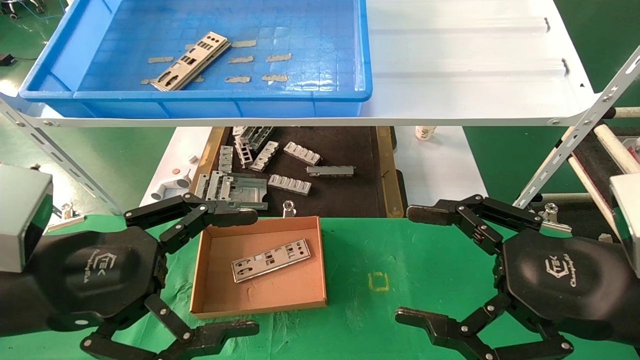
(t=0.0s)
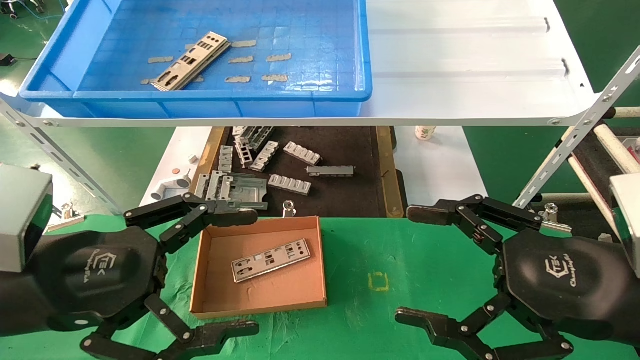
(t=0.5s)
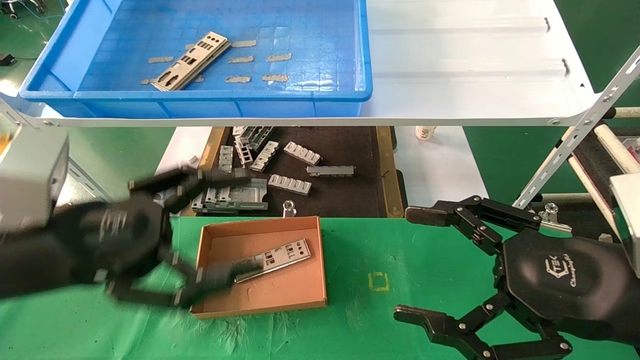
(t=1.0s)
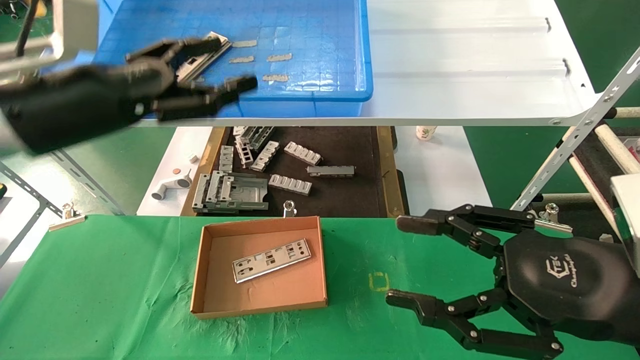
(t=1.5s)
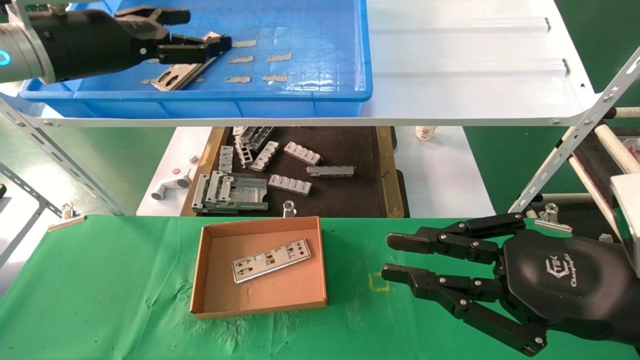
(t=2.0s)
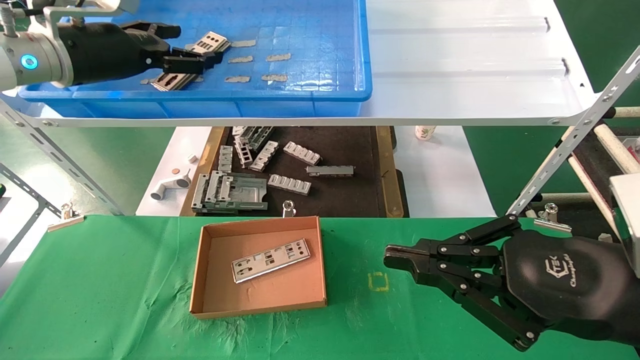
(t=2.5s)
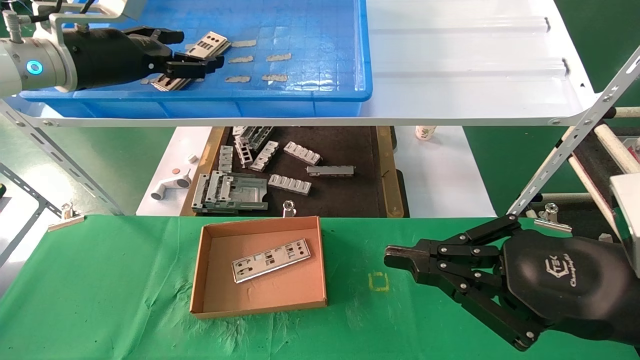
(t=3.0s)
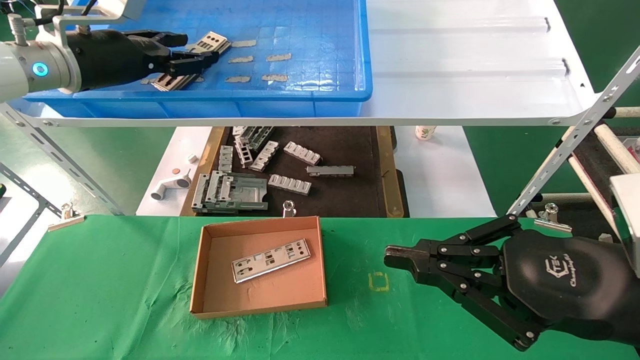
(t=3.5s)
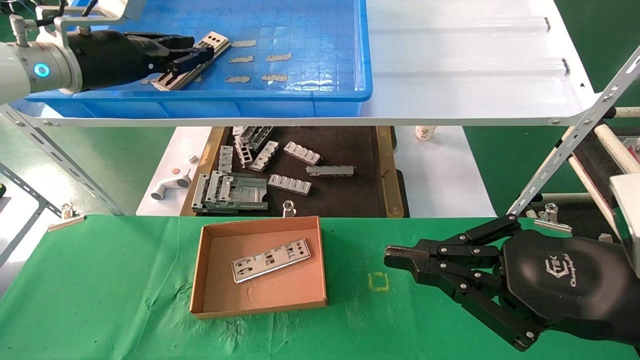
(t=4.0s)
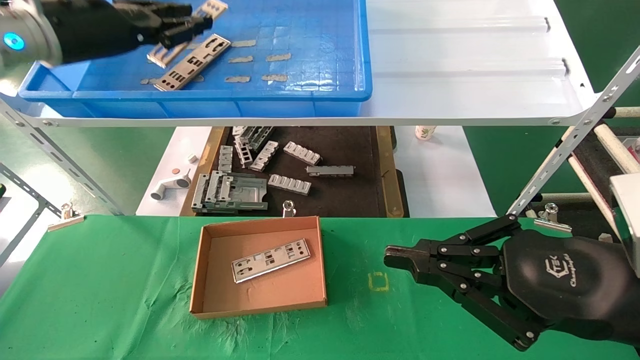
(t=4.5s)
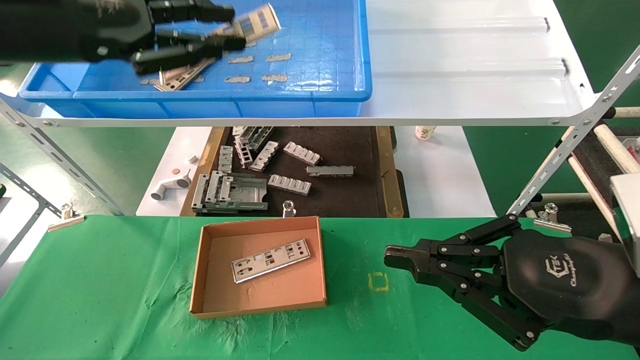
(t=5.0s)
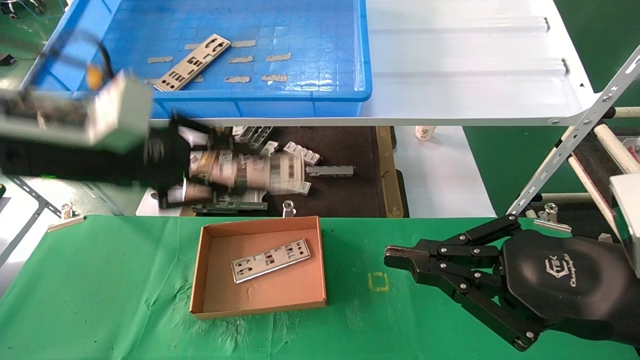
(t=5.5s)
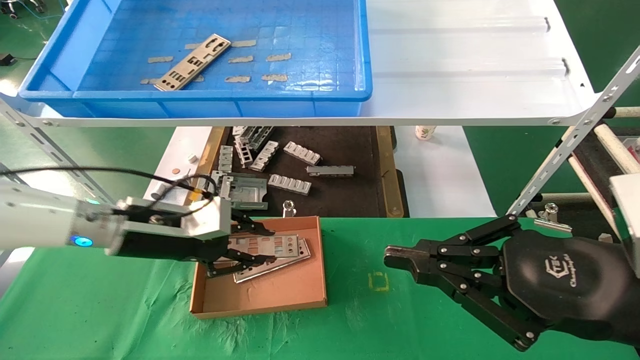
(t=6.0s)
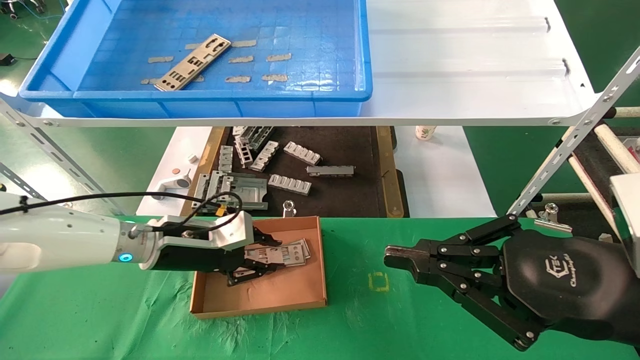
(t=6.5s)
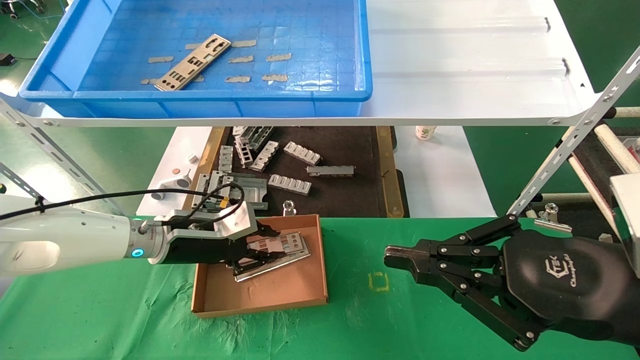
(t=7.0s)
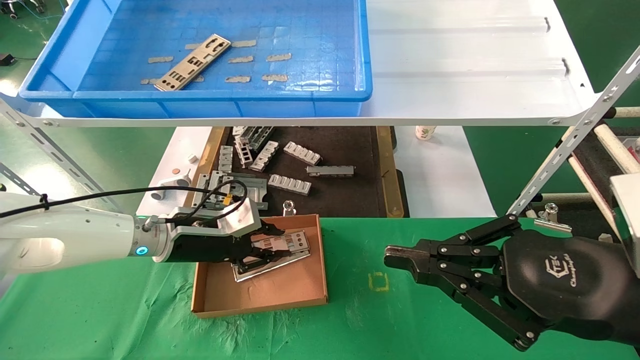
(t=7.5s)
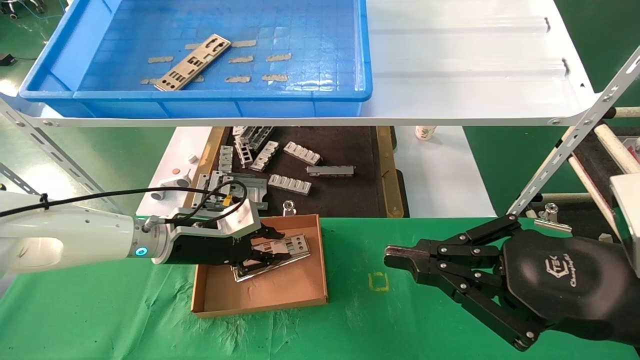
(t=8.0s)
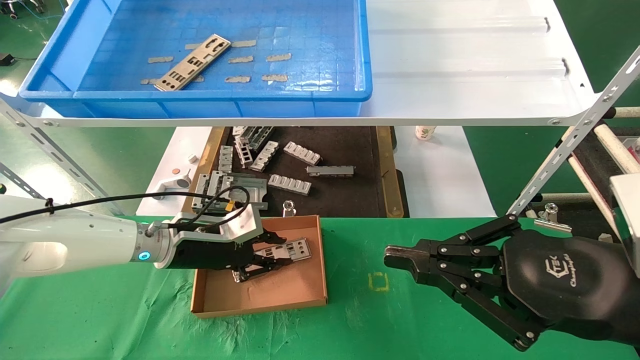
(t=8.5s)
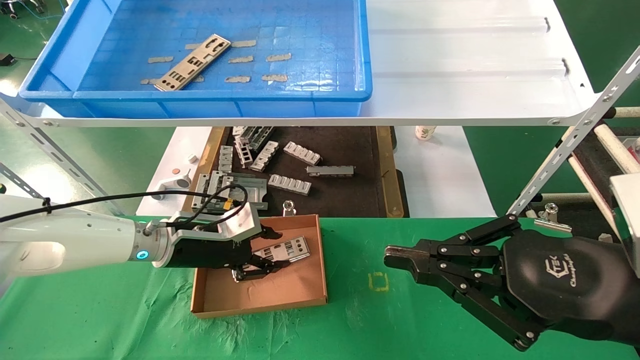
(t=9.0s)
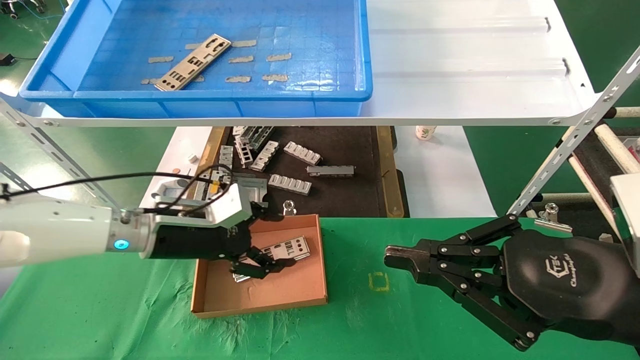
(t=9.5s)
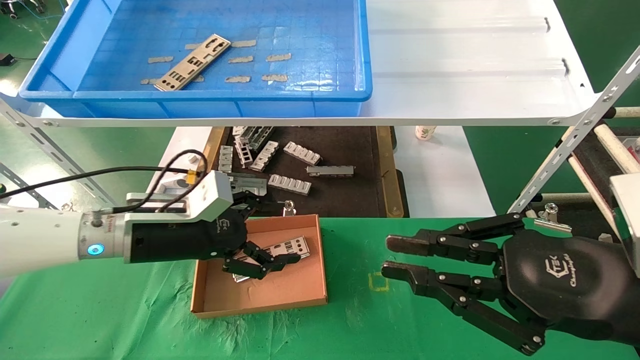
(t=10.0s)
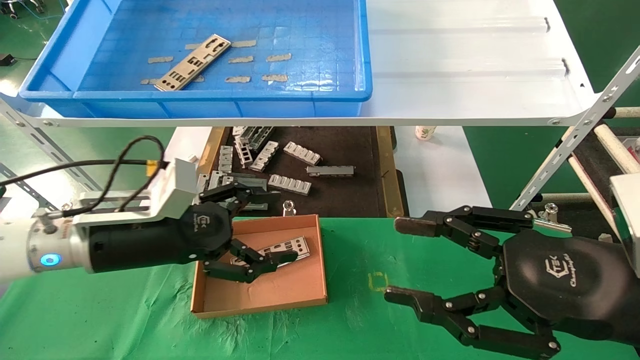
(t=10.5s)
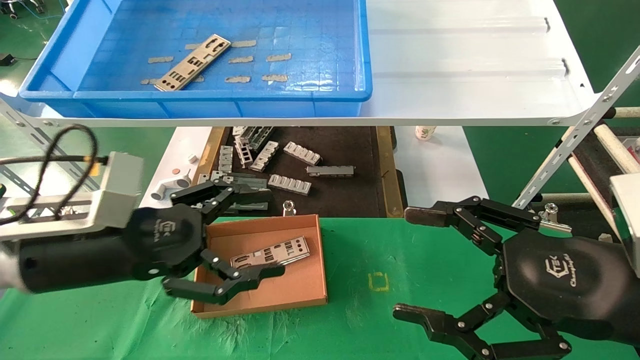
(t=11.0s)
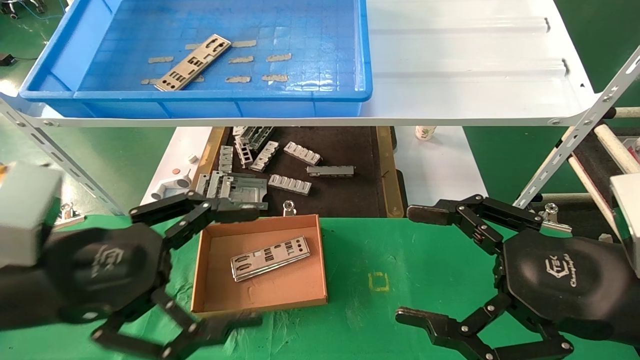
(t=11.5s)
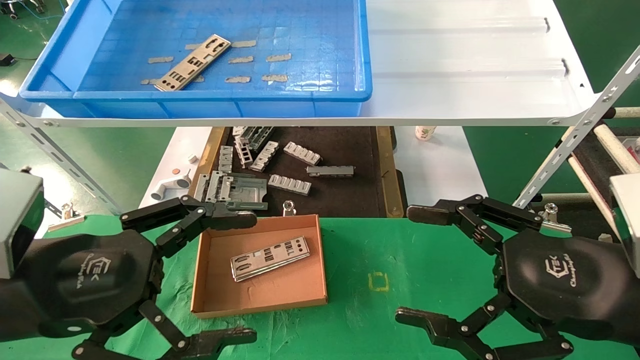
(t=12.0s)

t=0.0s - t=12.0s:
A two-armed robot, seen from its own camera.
Task of the whole recording: pick up the parts on the tray and put them in the cardboard box.
Step, t=1.5s - t=4.0s: Pick up the IO bracket from the container box.
Step, t=4.5s - t=9.0s: Place the IO bracket into the ingredient slot.
t=0.0s - t=2.0s: The right gripper closes its fingers, while the left gripper goes some 25 cm forward and upward.
t=2.0s - t=4.0s: The left gripper closes up.
t=4.0s - t=6.0s: The left gripper travels downward by about 20 cm.
t=6.0s - t=8.0s: The left gripper moves downward and forward, some 10 cm.
t=8.0s - t=10.0s: The left gripper is displaced backward by approximately 5 cm, and opens up.
t=10.0s - t=12.0s: The left gripper goes approximately 20 cm backward, while the right gripper opens up.

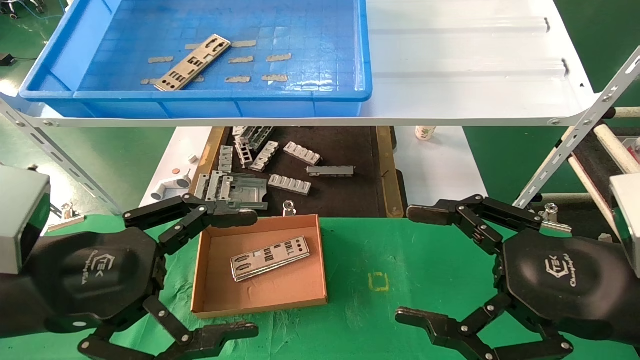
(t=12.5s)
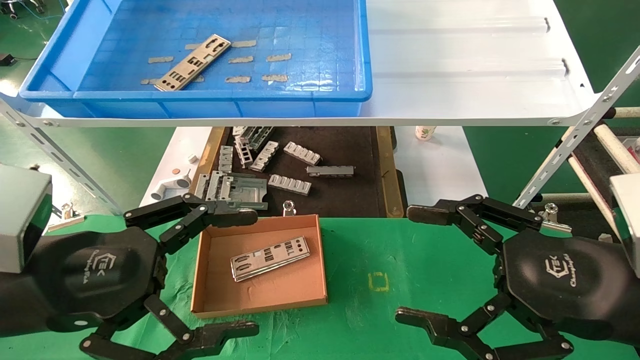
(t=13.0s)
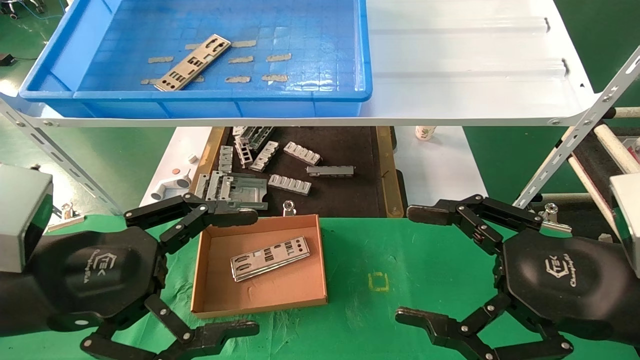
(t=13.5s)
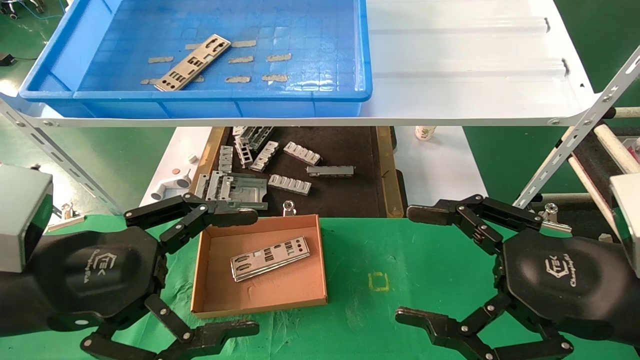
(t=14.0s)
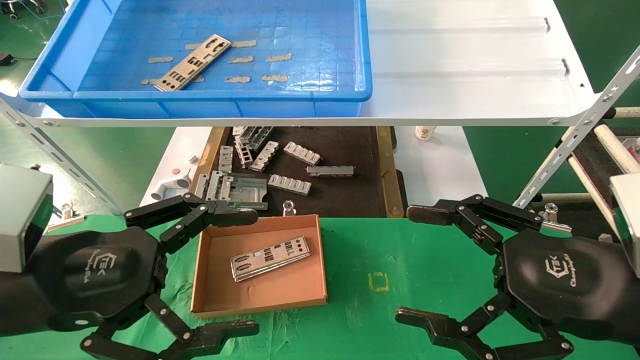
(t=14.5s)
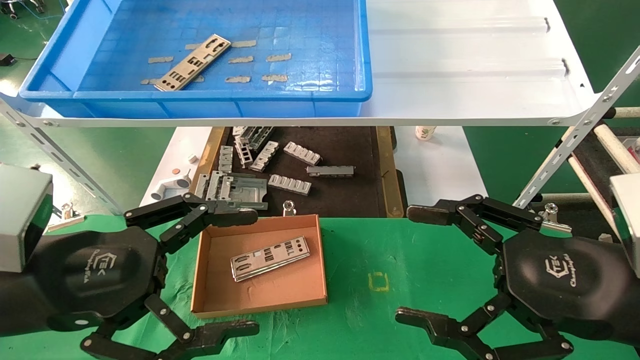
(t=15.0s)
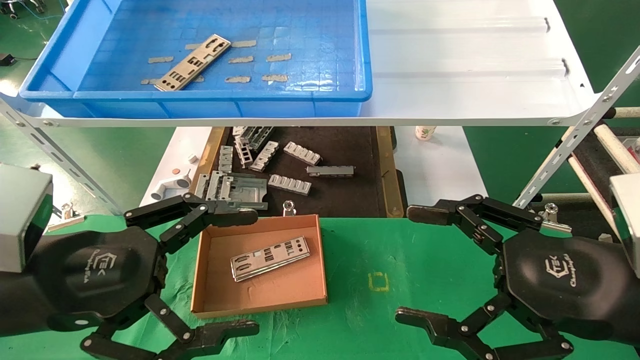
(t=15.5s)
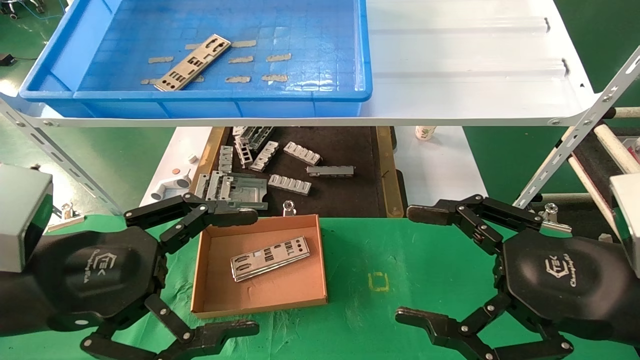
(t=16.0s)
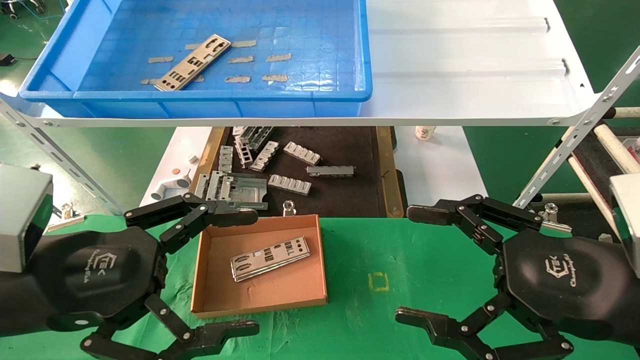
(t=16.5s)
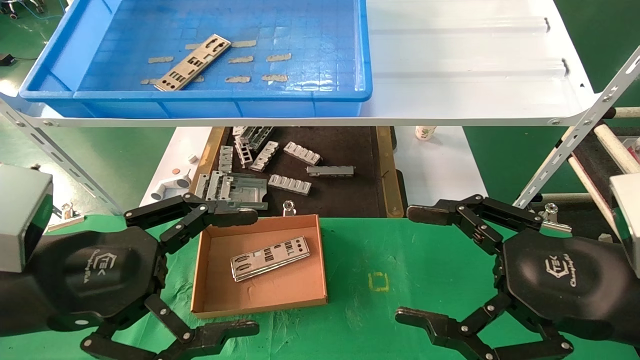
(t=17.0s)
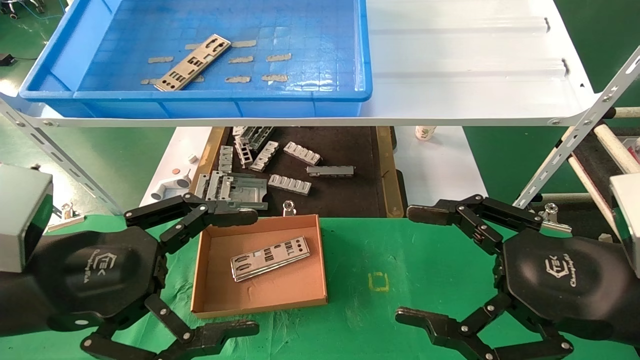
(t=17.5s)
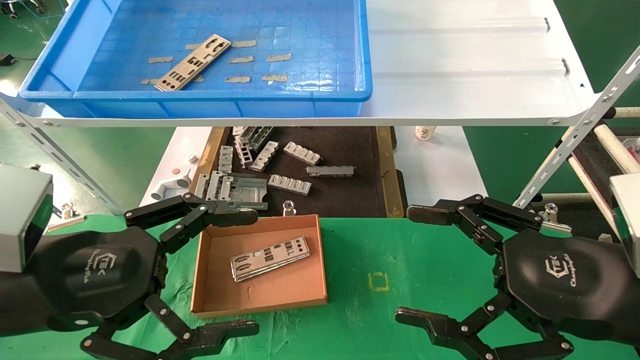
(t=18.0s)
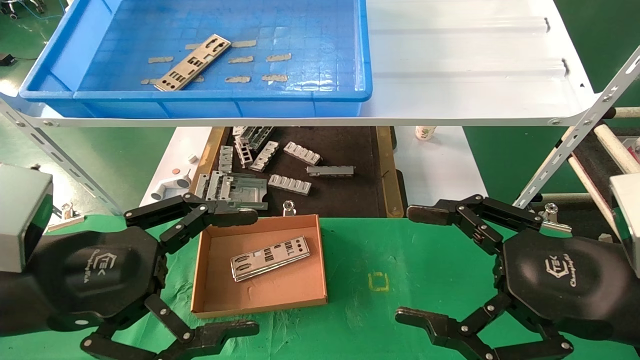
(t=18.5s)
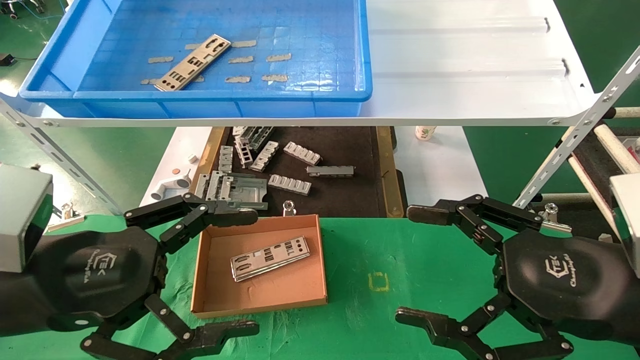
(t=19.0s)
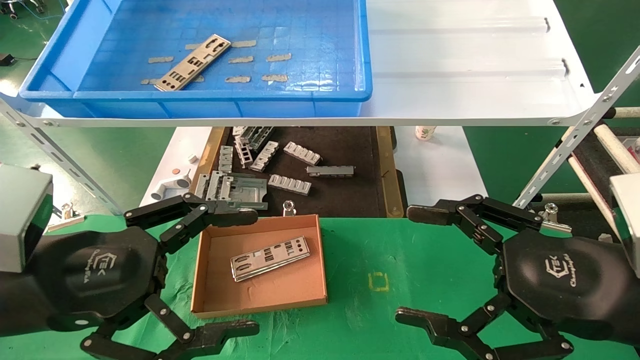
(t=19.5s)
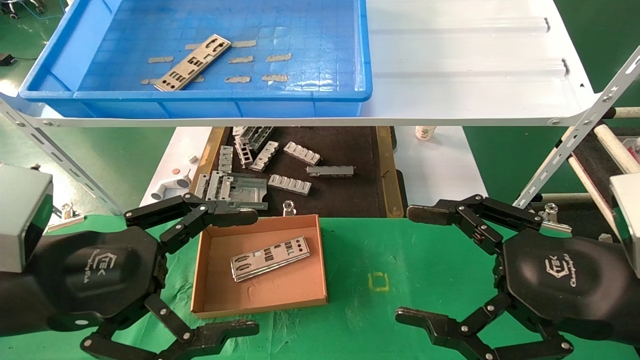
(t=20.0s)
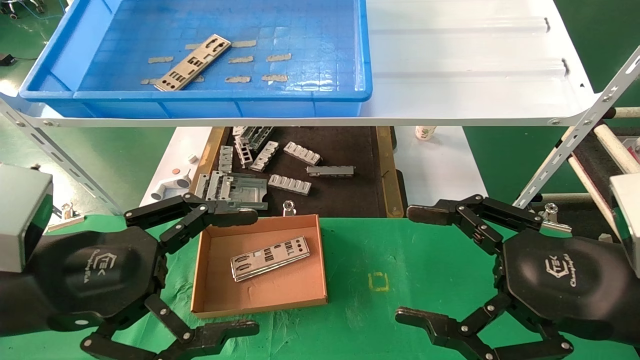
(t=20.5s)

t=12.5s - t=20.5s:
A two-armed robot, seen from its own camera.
Task of the whole recording: pick up the parts on the tray and put them in the cardboard box.
t=12.5s - t=20.5s: Both grippers stay about where they are.
